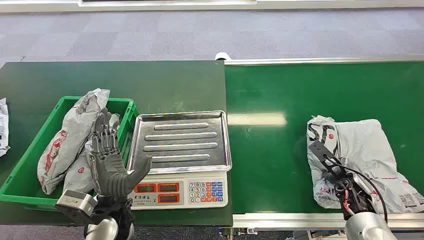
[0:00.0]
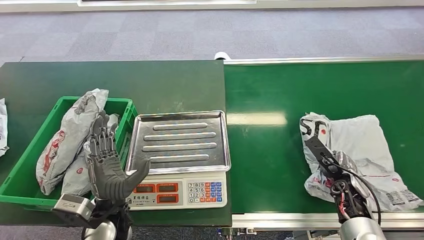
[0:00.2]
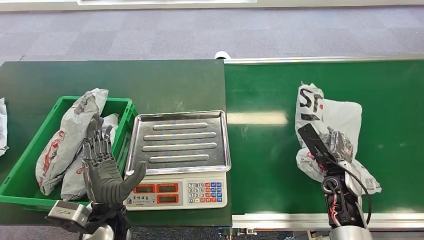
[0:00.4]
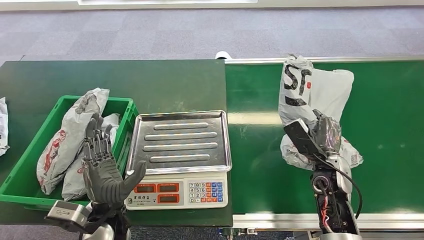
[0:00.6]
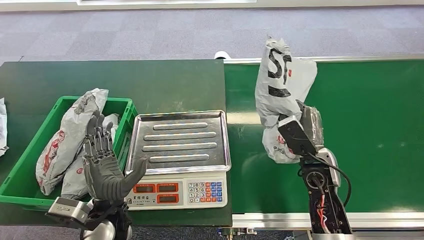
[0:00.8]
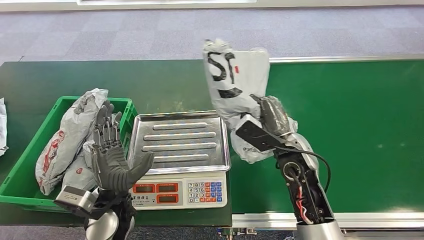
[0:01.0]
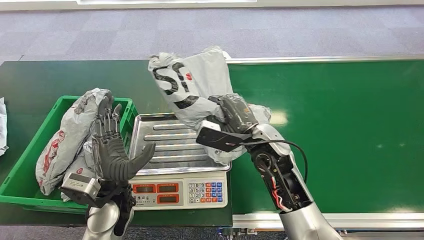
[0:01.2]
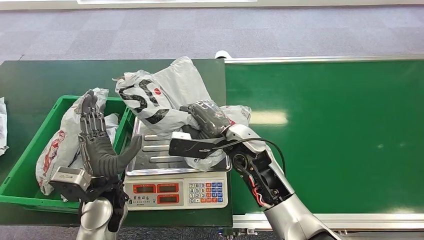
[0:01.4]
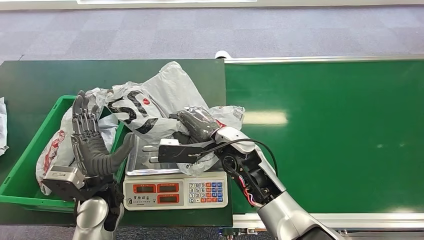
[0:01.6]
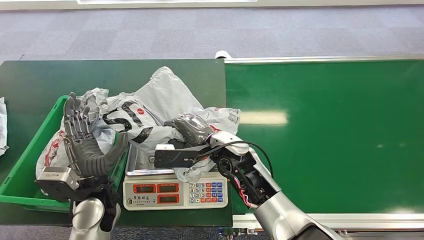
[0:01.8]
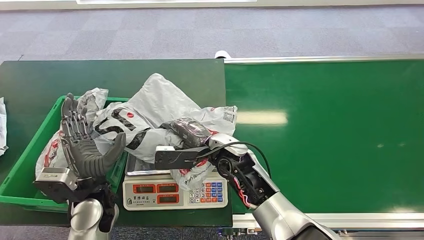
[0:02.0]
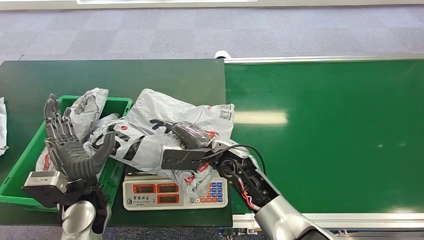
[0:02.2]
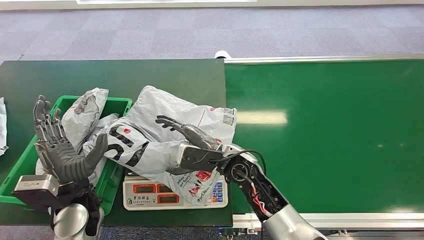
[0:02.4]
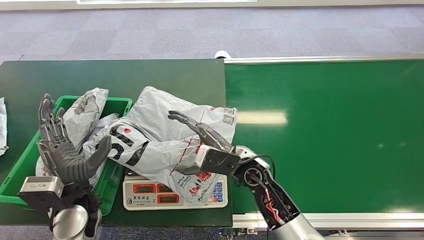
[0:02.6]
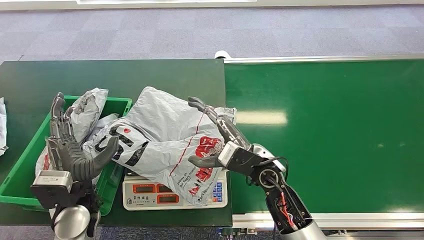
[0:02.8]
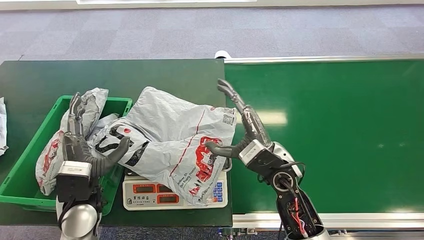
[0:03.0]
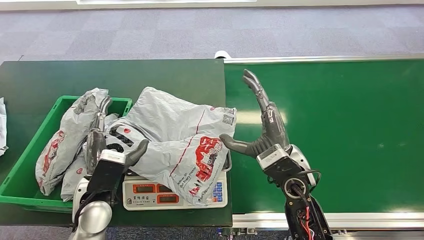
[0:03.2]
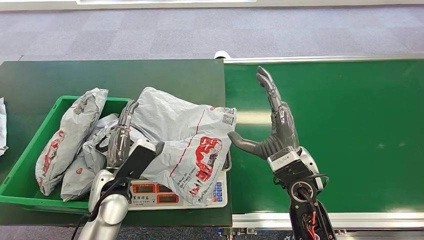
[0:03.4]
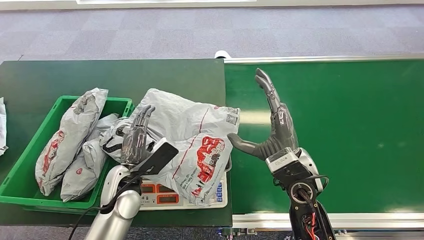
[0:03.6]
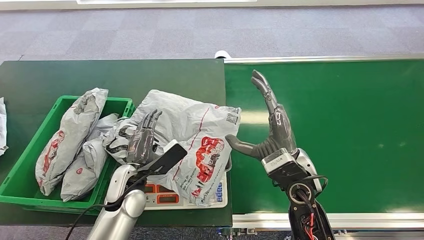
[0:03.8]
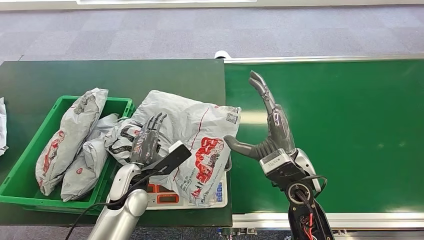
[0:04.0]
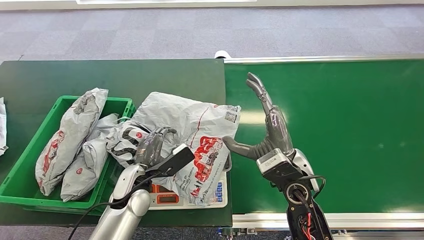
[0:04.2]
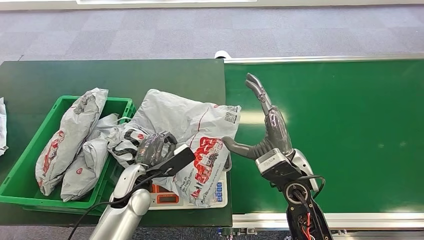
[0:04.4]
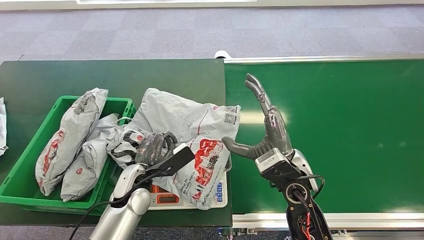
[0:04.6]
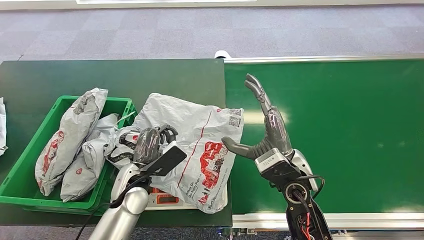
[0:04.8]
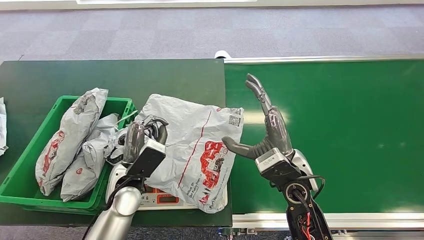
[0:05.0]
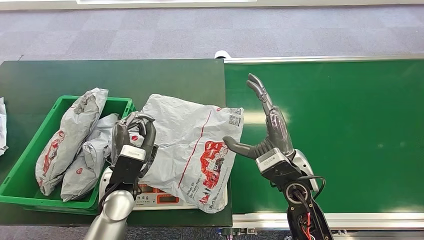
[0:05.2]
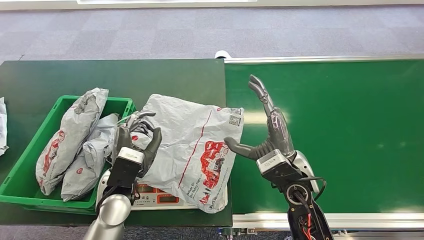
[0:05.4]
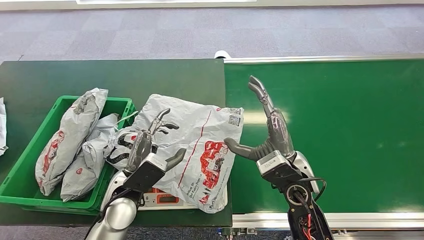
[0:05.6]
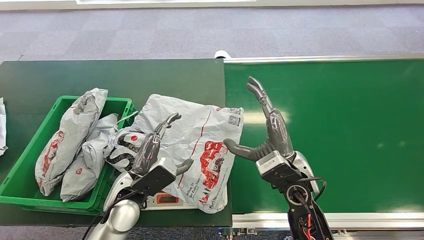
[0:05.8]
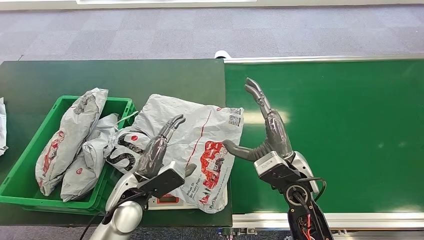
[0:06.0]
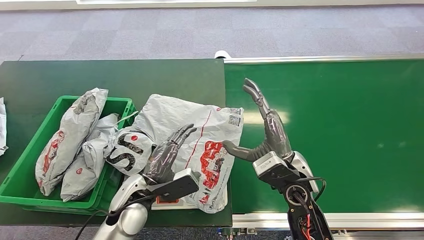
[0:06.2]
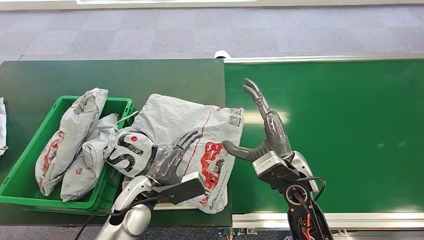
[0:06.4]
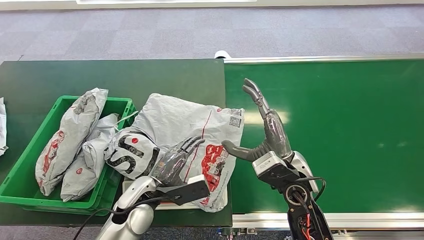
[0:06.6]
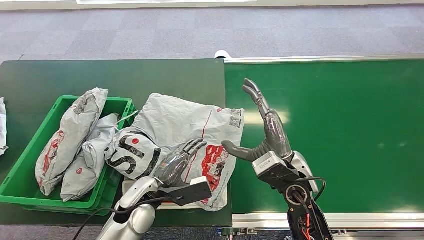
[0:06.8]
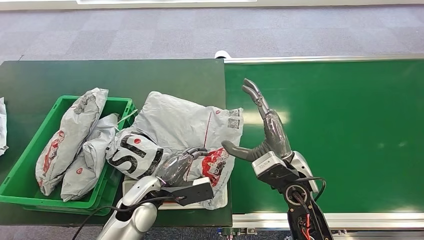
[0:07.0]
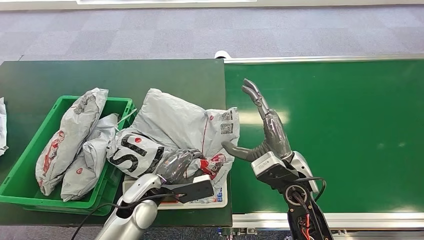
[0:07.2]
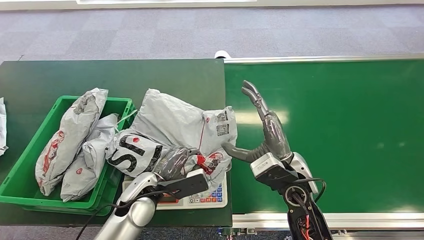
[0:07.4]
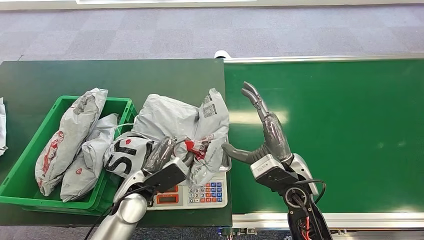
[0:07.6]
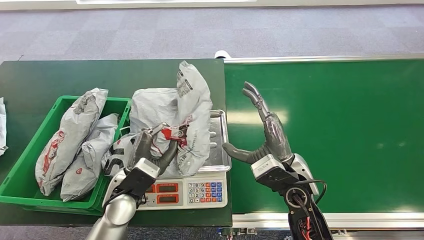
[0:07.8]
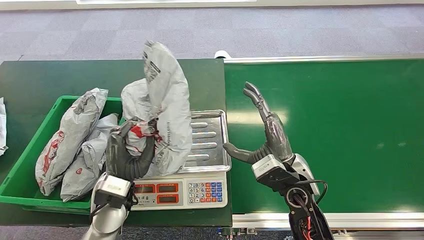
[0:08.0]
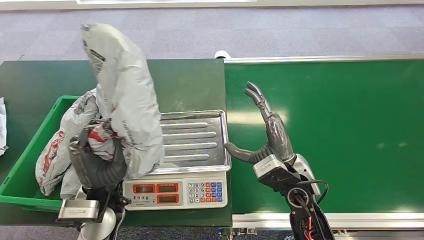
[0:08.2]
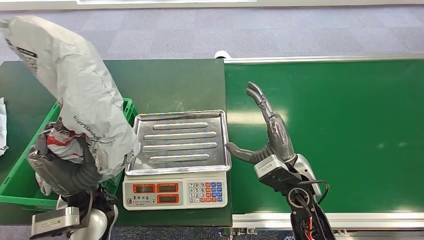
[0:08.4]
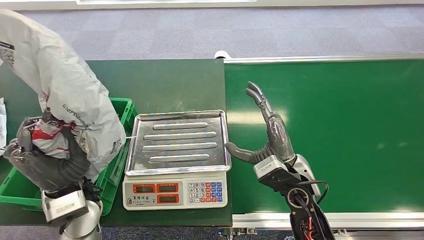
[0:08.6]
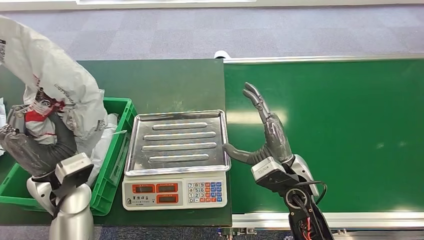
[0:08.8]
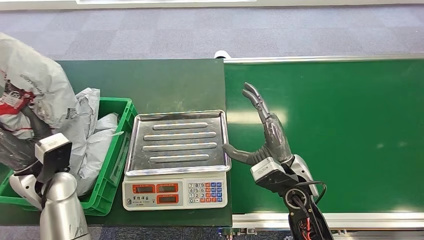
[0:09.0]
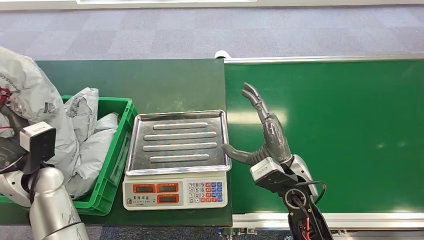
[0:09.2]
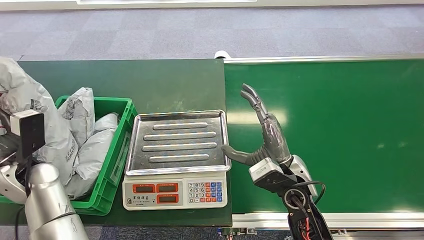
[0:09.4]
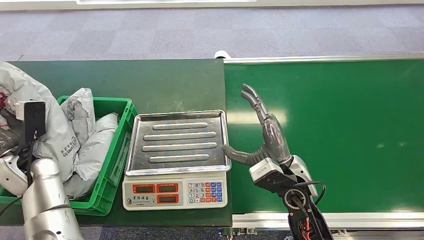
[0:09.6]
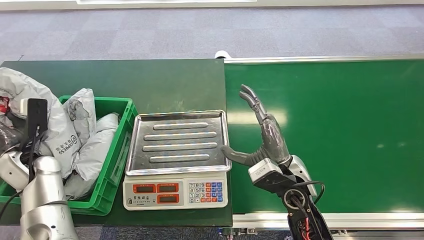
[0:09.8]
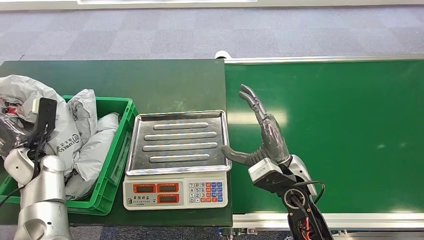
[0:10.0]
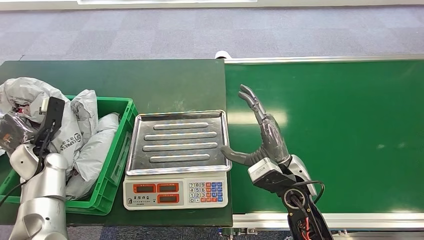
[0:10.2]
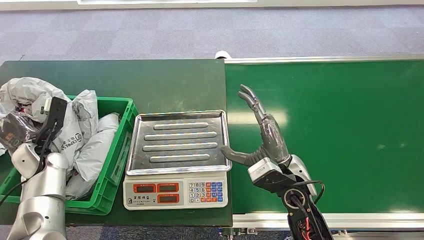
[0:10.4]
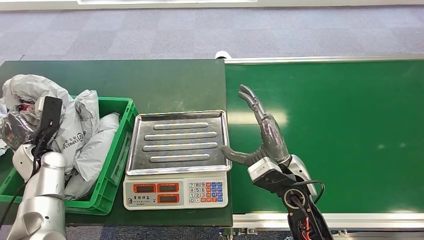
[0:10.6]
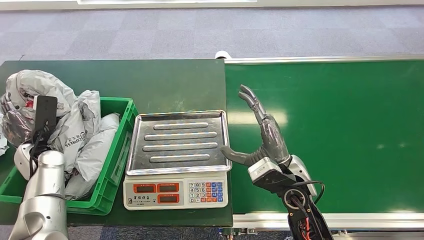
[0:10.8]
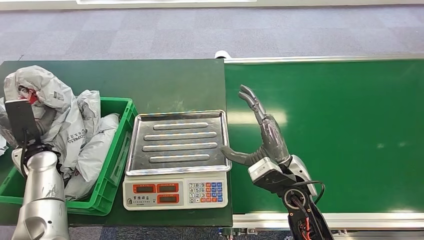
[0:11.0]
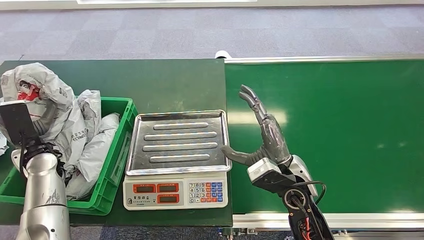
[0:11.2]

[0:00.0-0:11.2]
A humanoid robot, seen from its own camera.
Step, 0:00.0 to 0:00.8: Pick up the package from the conveyor belt.
Step, 0:01.0 to 0:02.2: Place the package onto the inbound machine.
Step, 0:07.4 to 0:08.2: Pick up the package from the inbound machine.
Step, 0:09.2 to 0:11.2: Place the package into the parcel locker.
0:03.2 to 0:04.8: The left hand shifts some 5 cm to the right.
0:06.4 to 0:08.0: The left hand moves roughly 5 cm.
